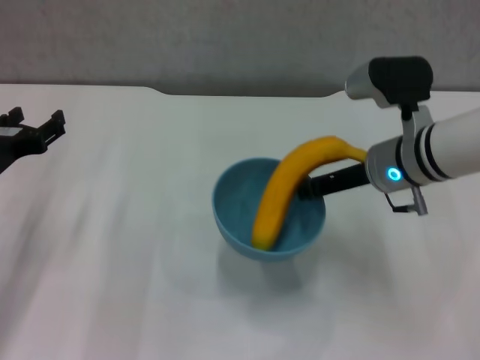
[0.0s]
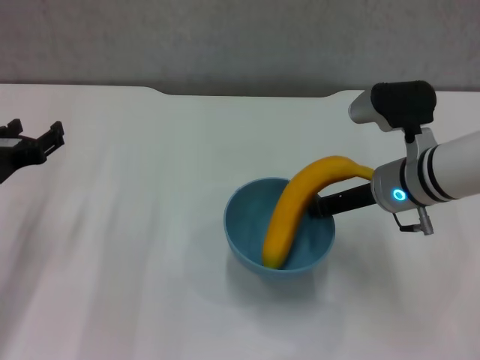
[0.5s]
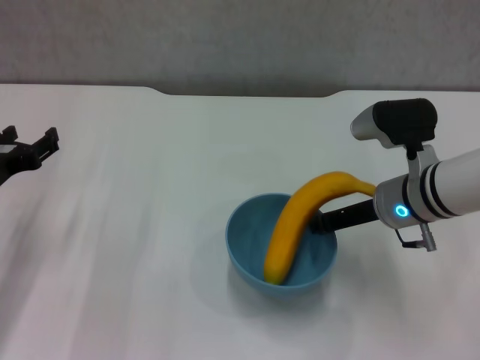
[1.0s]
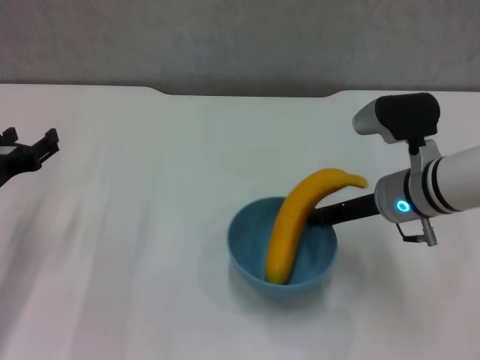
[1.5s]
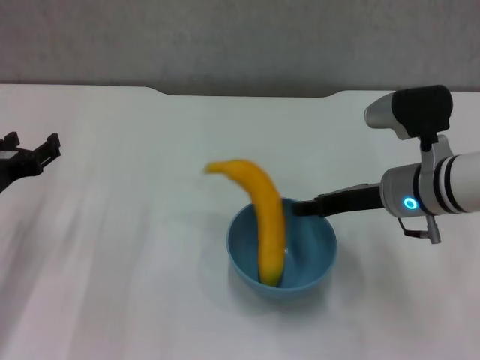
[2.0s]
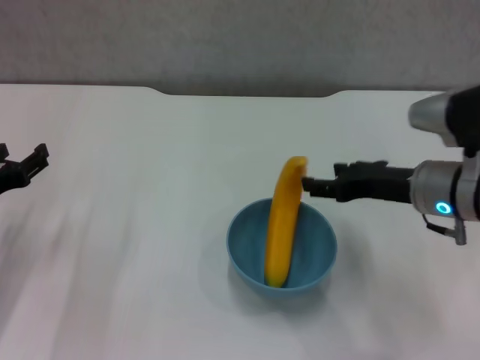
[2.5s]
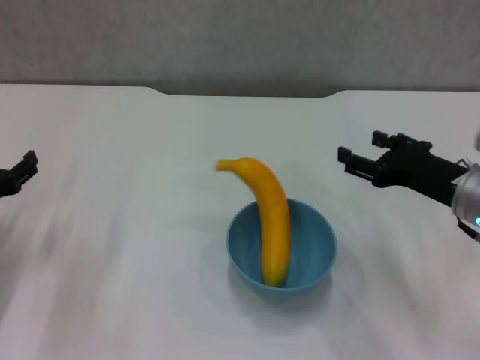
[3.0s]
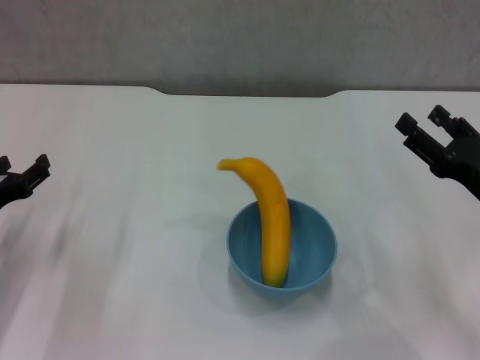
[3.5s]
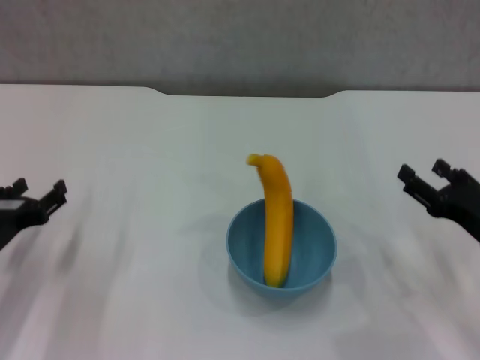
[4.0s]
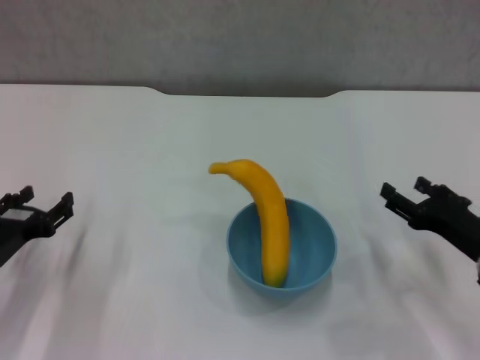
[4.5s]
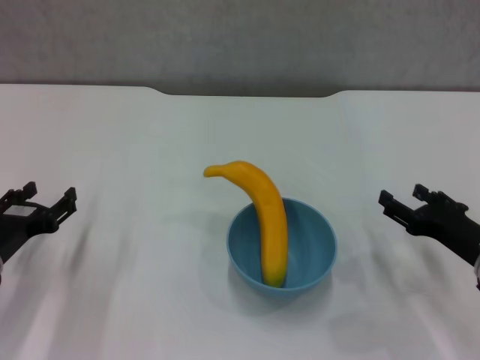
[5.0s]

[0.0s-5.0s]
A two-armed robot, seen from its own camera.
0.0s to 2.5s: The right gripper shifts by some 5 cm, and opens.
2.5s to 5.0s: The right gripper shifts about 15 cm downward, to the right and backward. The left gripper moves roughly 5 cm.
